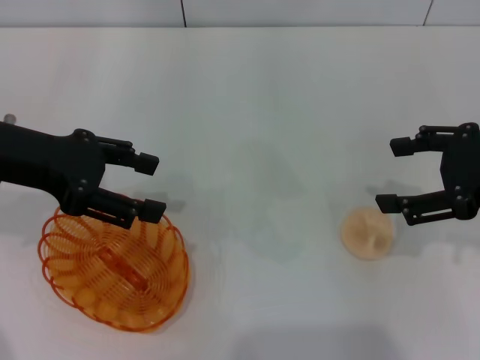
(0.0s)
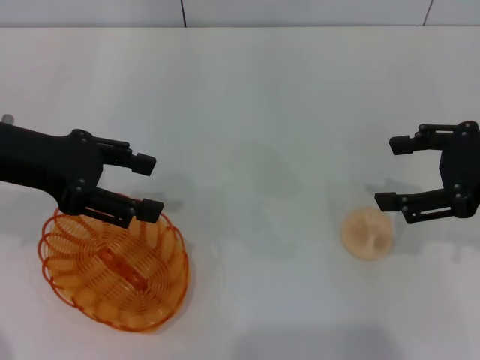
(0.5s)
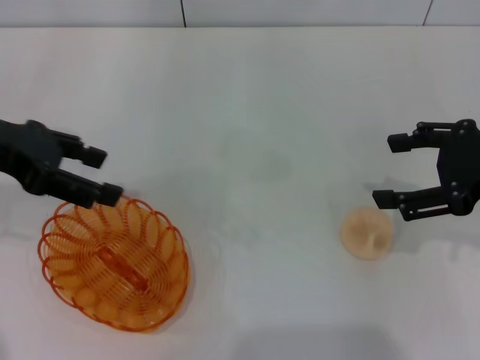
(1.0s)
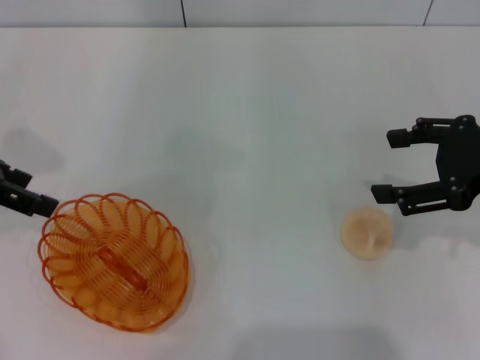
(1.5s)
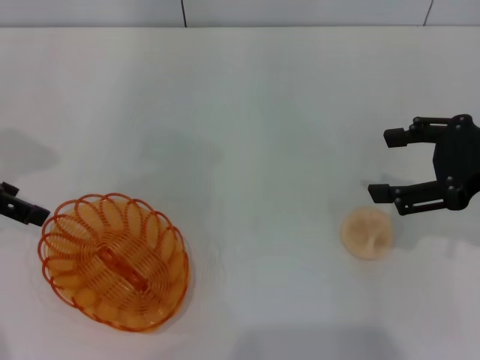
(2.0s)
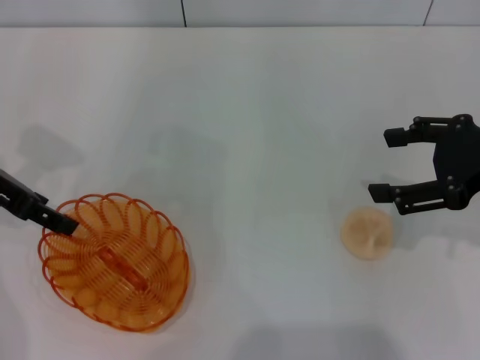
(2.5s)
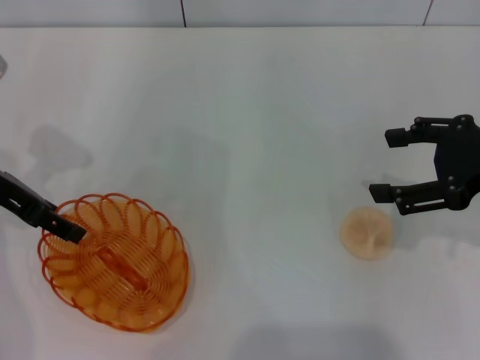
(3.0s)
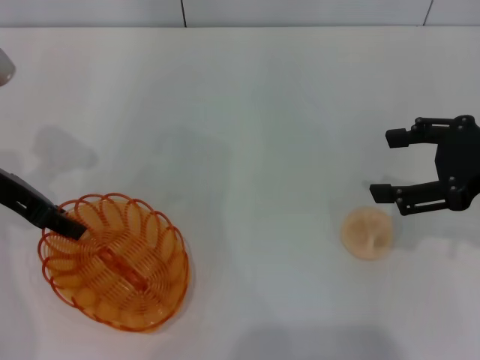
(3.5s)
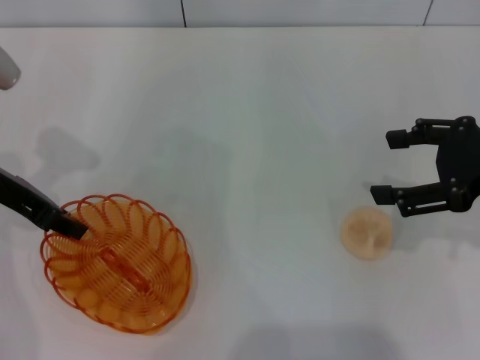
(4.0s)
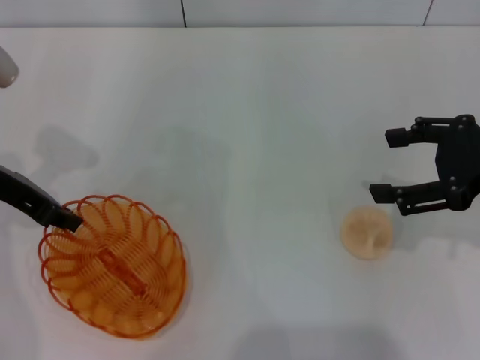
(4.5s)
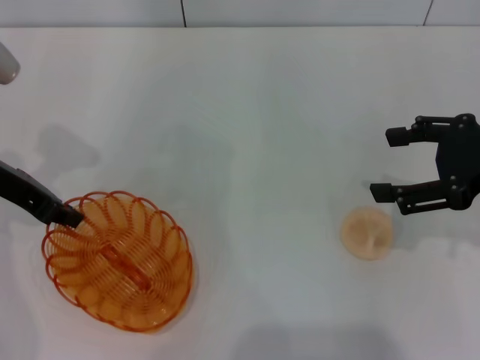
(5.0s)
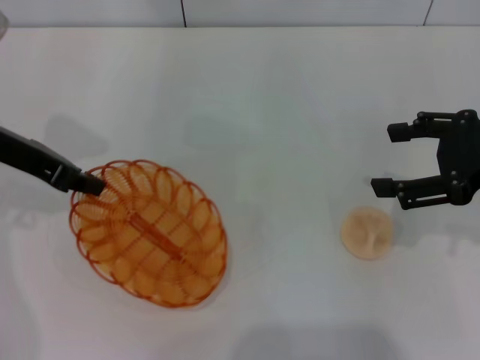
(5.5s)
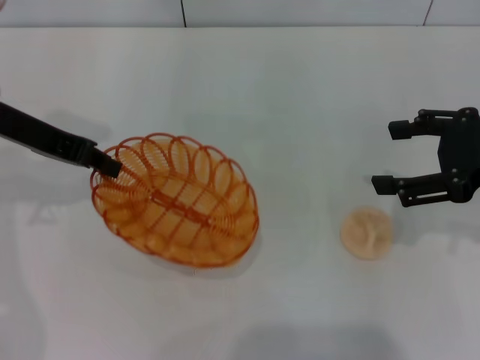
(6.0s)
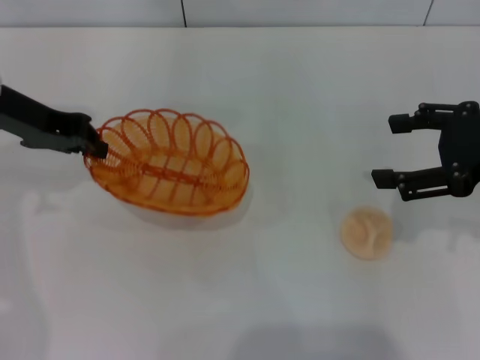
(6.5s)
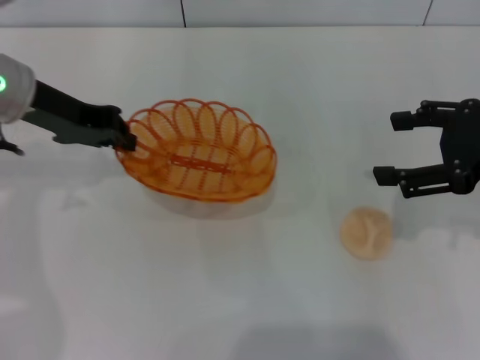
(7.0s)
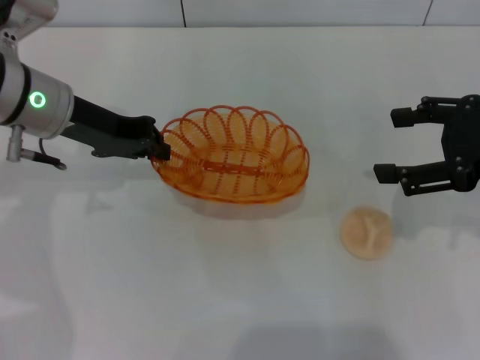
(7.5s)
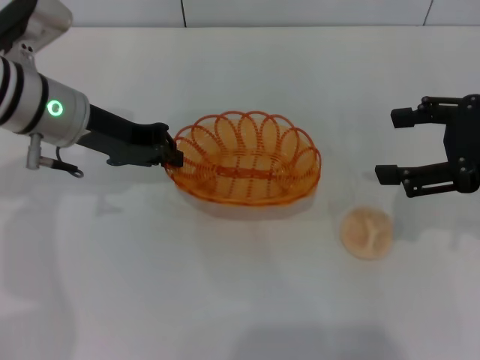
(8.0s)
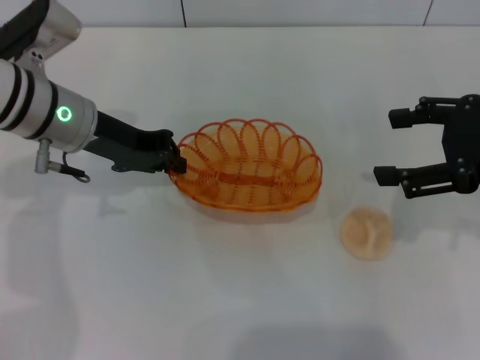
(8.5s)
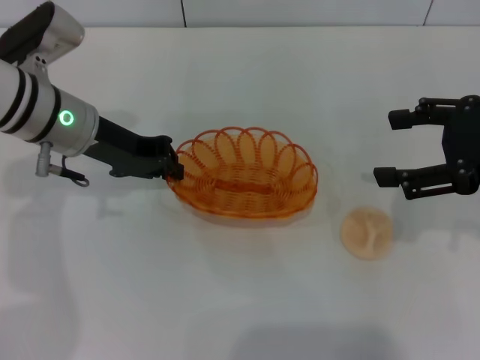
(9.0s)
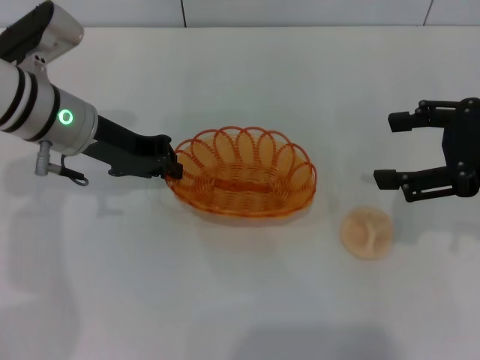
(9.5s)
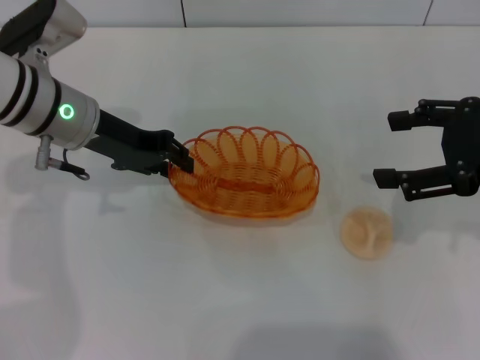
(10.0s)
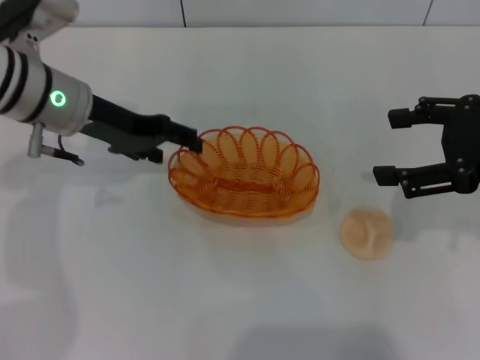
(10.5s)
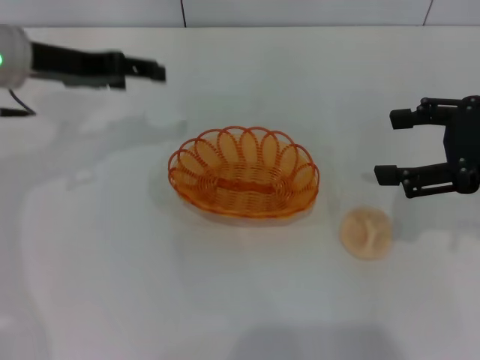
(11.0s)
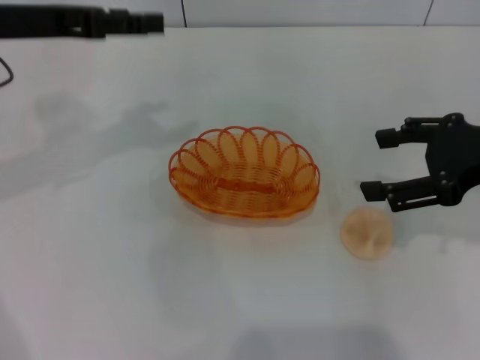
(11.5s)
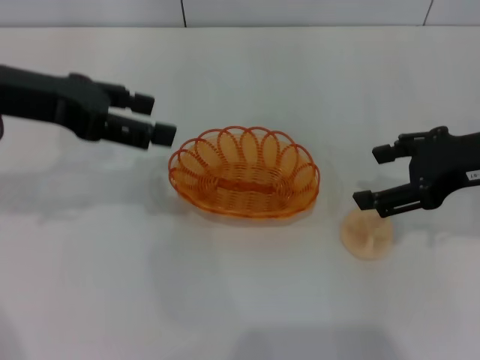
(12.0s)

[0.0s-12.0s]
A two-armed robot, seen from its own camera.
Step, 0.0s to 5.5s: Pick up the basket with the left gripper.
Step, 6.0s to 10.5s: Place the basket in the center of view with the left gripper.
0.0s to 2.0s: The left gripper goes about 5 cm to the left.
2.0s to 4.0s: The left gripper ends up approximately 5 cm from where it was, and closes its fingers.
6.0s to 8.0s: The left gripper travels to the right by about 5 cm.
8.0s to 10.0s: Neither gripper changes place.
10.0s to 12.0s: The left gripper is displaced upward, to the left and backward by some 10 cm, and opens up.

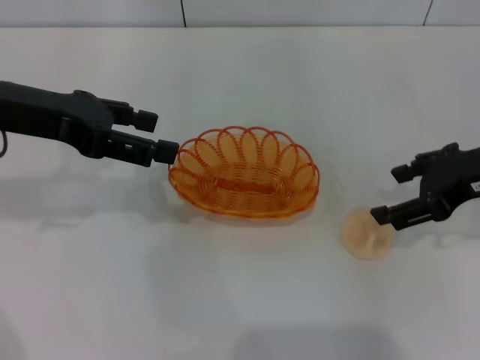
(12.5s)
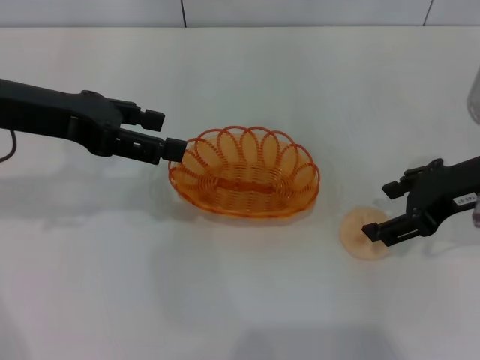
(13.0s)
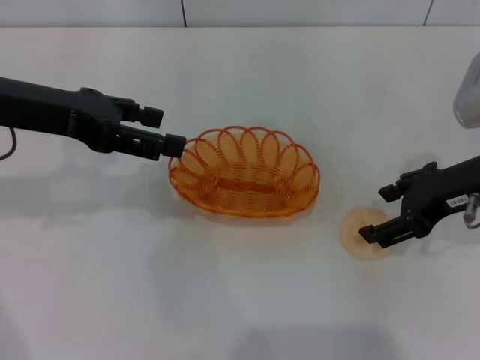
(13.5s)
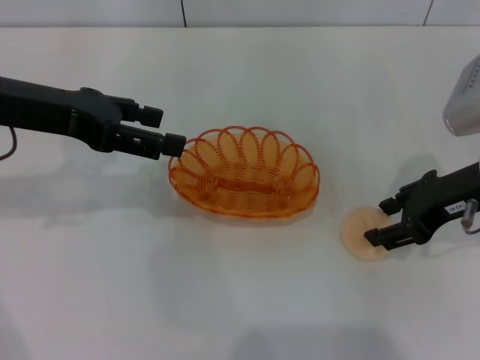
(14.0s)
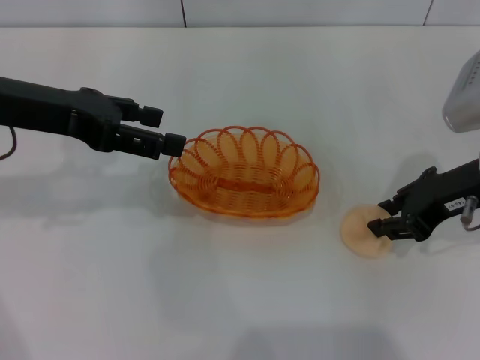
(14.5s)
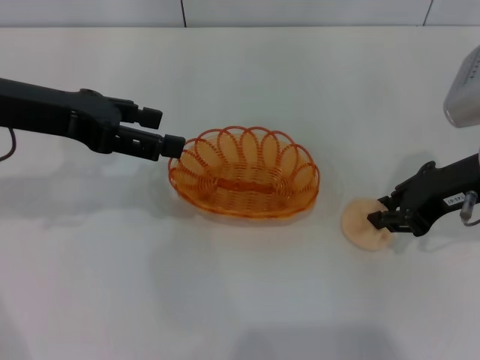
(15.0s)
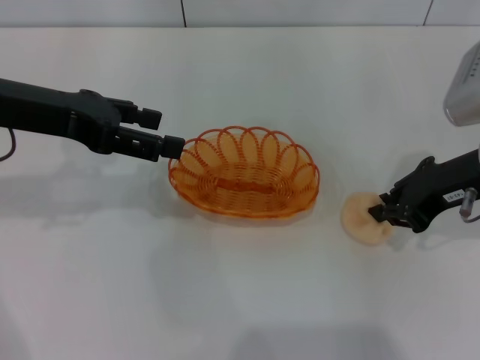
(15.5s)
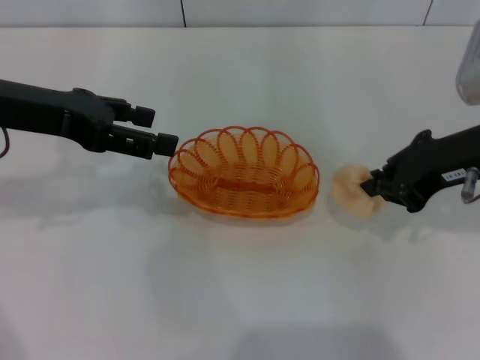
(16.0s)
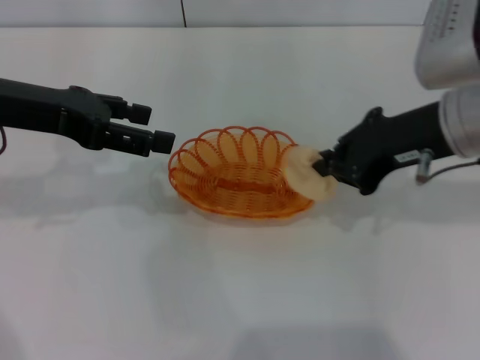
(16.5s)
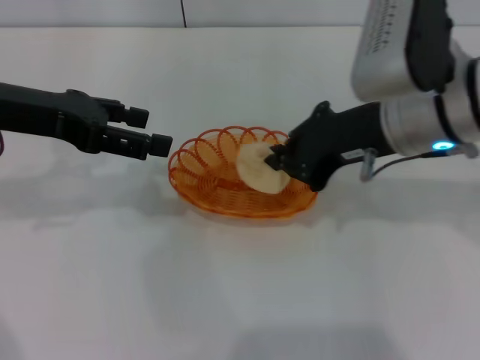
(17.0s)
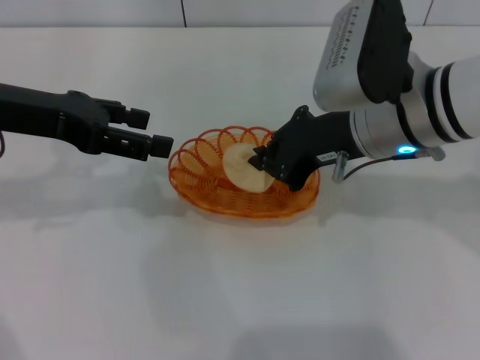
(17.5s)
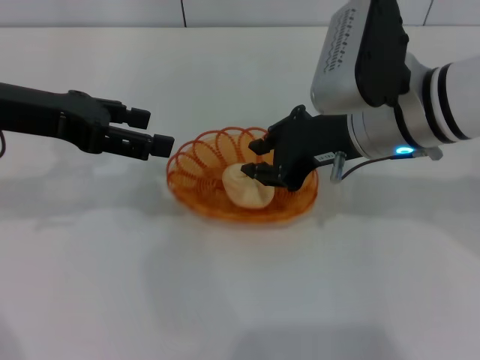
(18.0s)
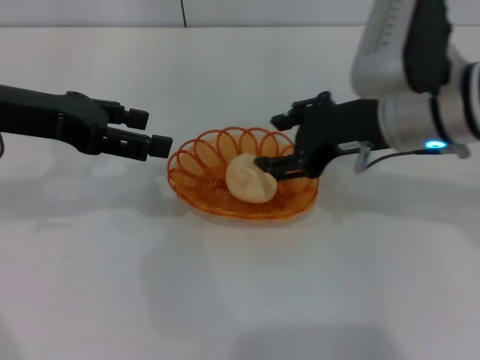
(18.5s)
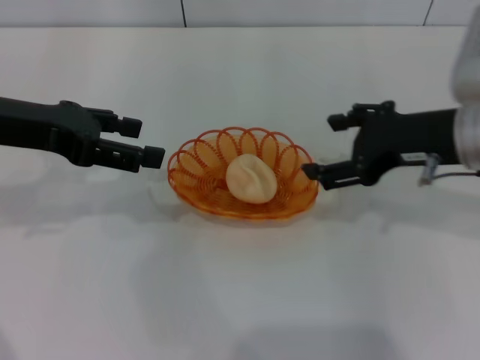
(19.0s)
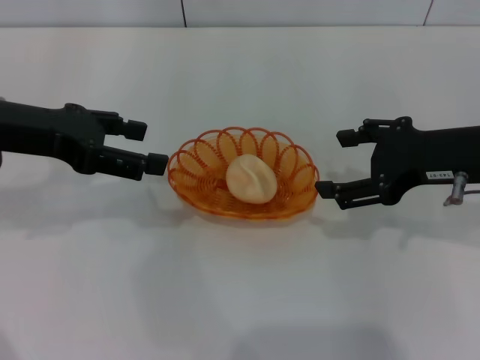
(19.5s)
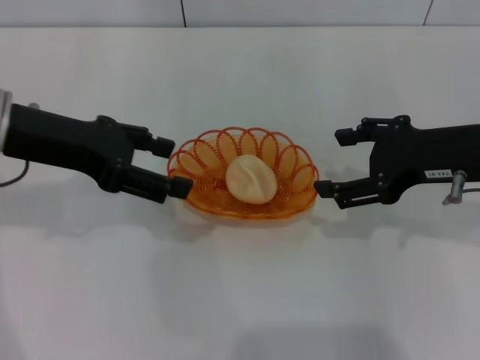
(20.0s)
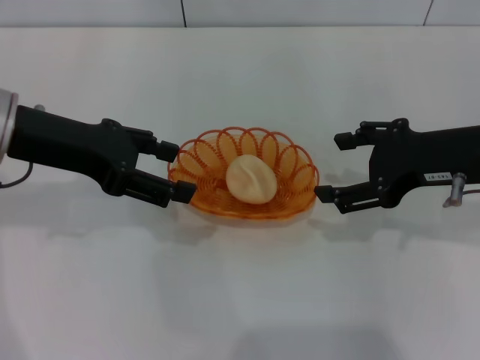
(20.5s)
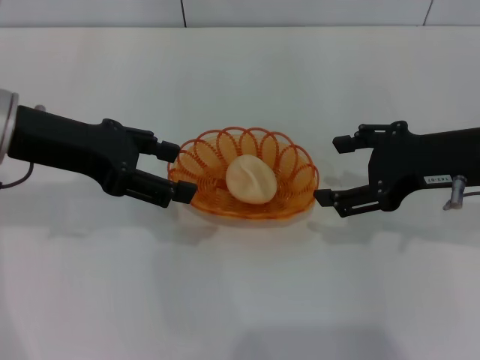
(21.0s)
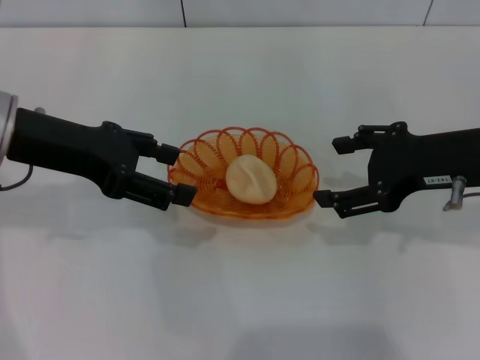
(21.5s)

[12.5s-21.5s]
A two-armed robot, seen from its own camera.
Step, 12.5s to 16.0s: Pick up the egg yolk pastry with the right gripper.
Step, 16.5s to 18.5s: Place the egg yolk pastry into the basket with the right gripper.
12.5s to 14.5s: The right gripper closes.
14.5s to 17.0s: The right gripper travels to the left by approximately 10 cm, and closes up.
17.0s to 19.5s: The right gripper goes roughly 10 cm to the right, and opens its fingers.
19.5s to 21.5s: The grippers make only small movements.

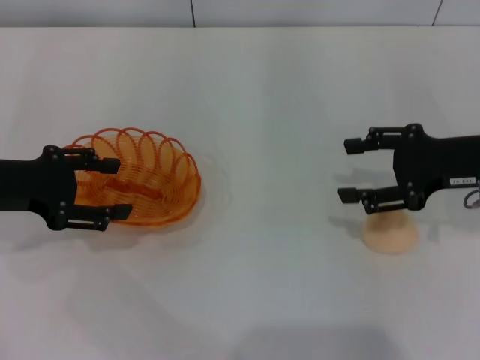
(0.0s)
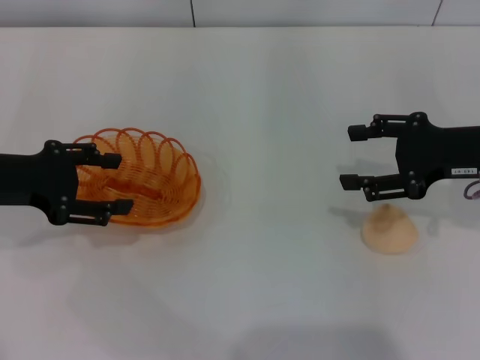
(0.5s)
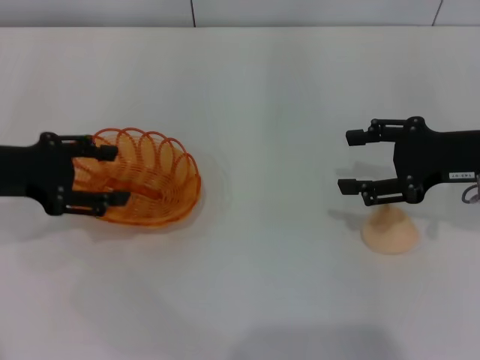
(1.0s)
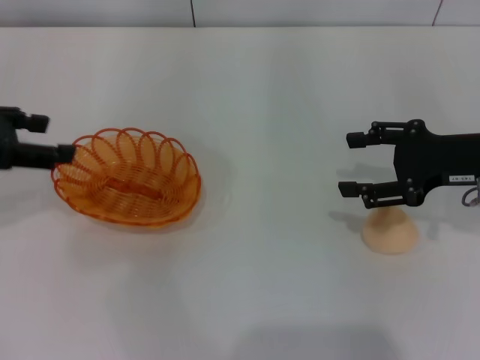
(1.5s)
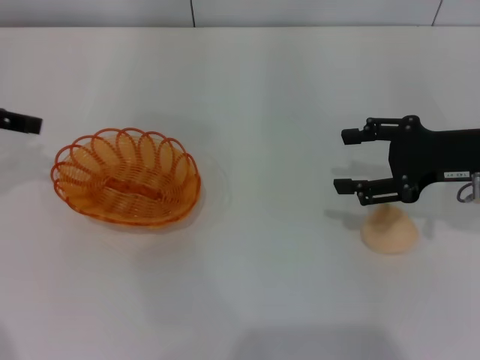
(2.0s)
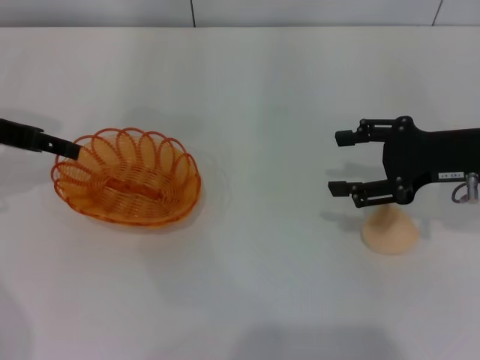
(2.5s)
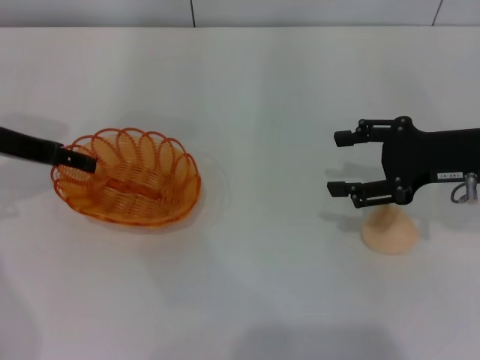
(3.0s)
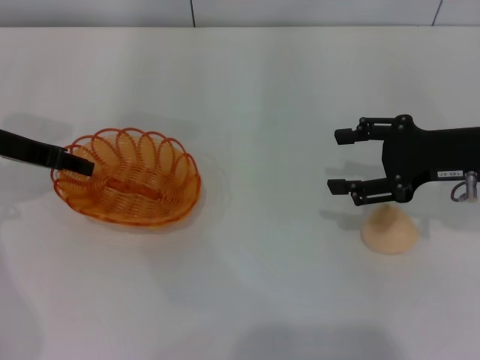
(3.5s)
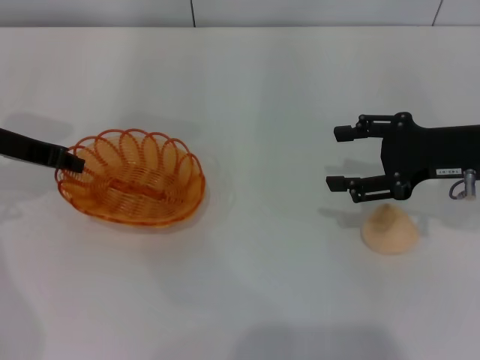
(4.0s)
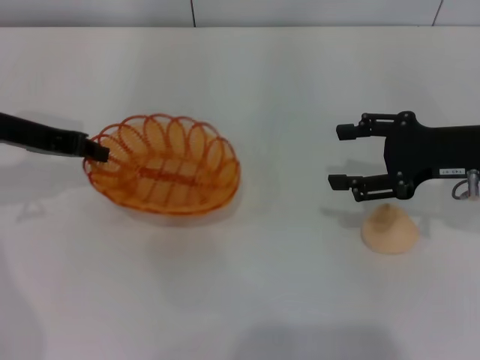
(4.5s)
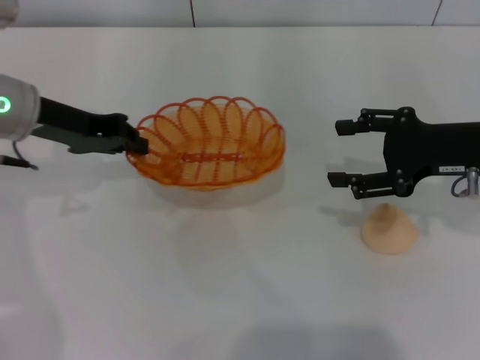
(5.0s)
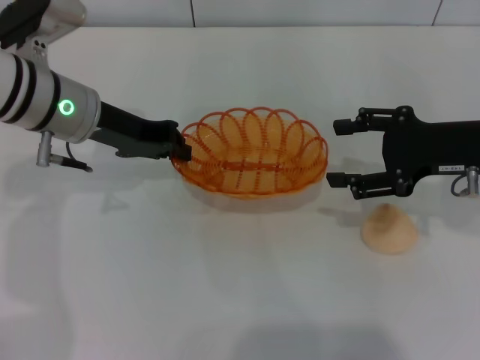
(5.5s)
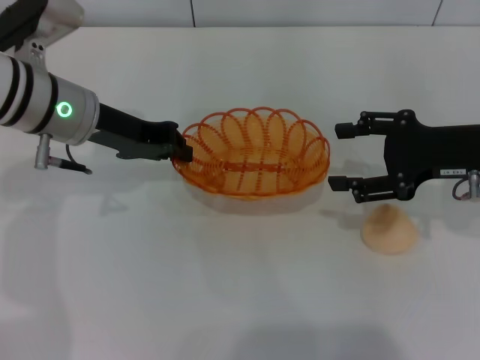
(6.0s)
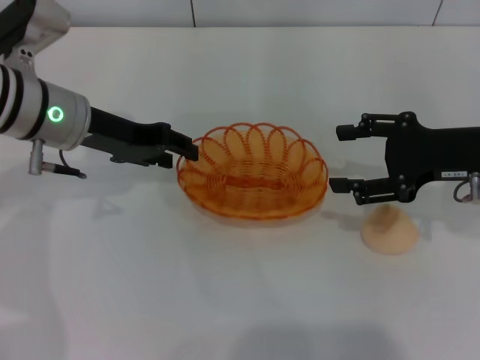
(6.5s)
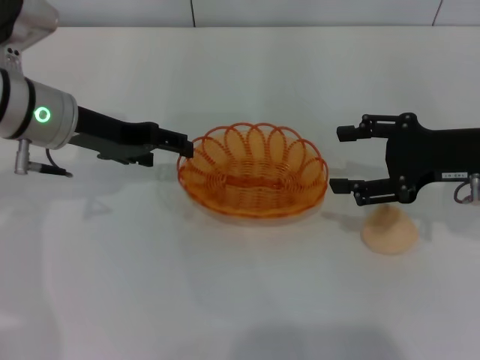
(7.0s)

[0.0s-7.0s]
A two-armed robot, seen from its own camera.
Step, 0.0s to 4.5s: Pick up the basket with the left gripper.
0.0s to 2.0s: The left gripper goes approximately 10 cm upward.
2.0s to 3.5s: The left gripper goes about 5 cm downward.
3.5s to 5.0s: The left gripper shifts approximately 5 cm to the right, and closes its fingers.
5.0s to 7.0s: The left gripper opens.
